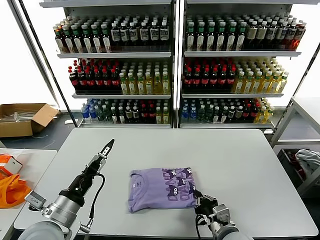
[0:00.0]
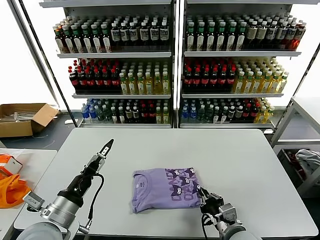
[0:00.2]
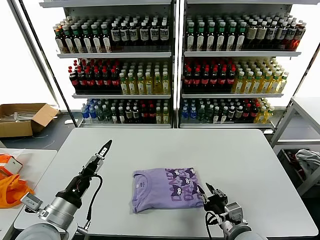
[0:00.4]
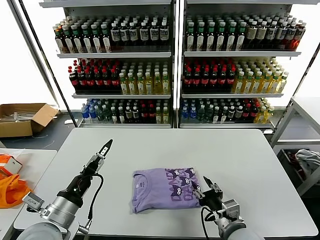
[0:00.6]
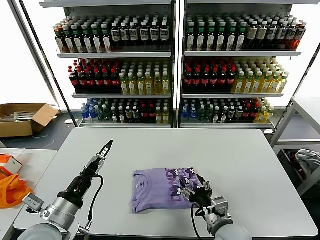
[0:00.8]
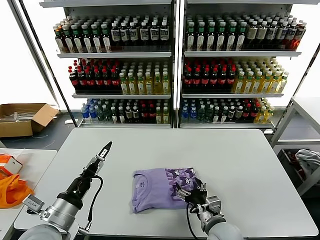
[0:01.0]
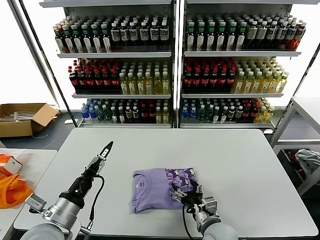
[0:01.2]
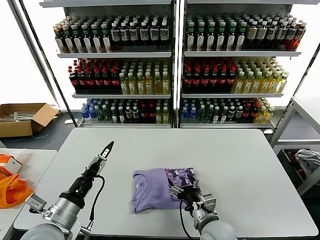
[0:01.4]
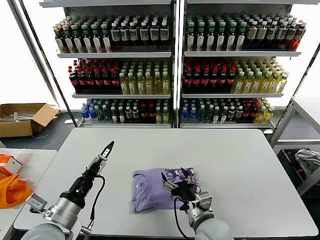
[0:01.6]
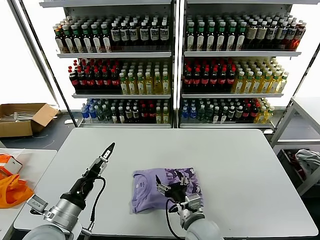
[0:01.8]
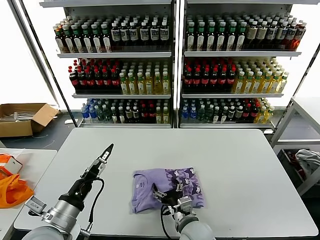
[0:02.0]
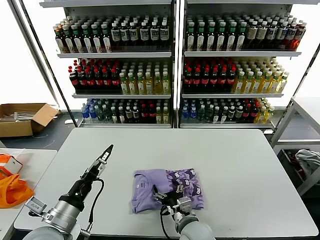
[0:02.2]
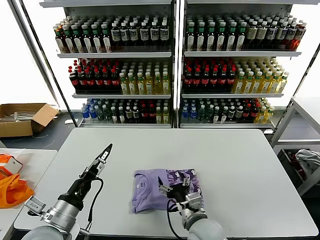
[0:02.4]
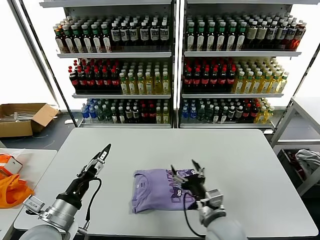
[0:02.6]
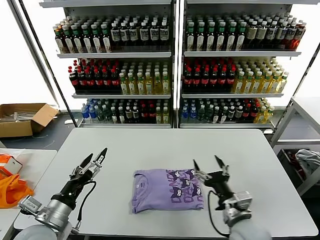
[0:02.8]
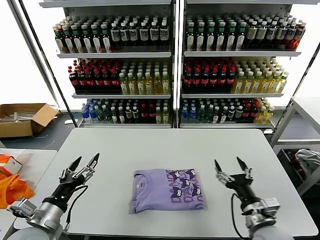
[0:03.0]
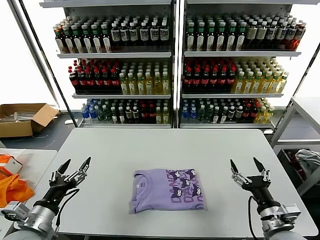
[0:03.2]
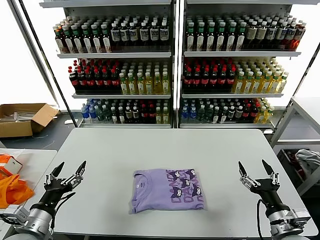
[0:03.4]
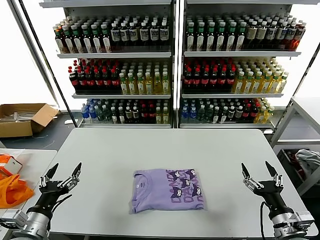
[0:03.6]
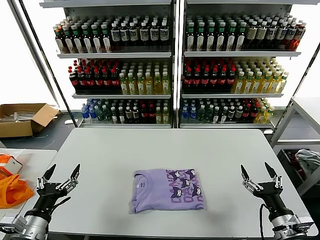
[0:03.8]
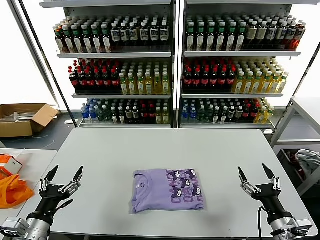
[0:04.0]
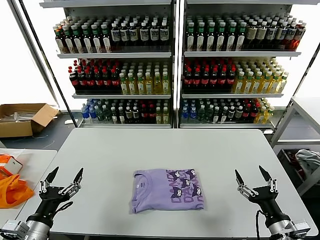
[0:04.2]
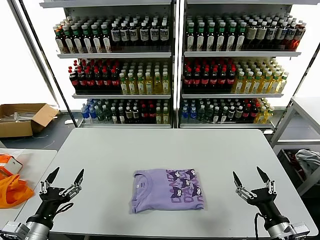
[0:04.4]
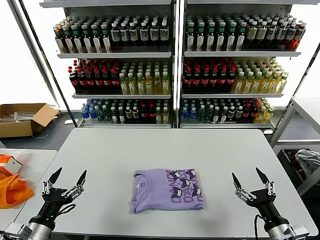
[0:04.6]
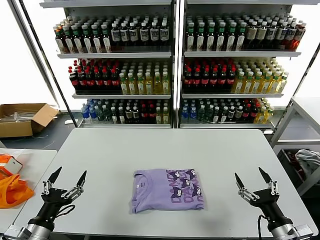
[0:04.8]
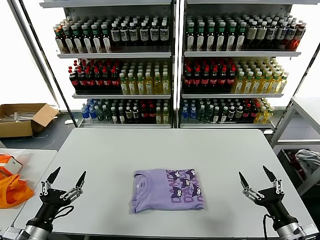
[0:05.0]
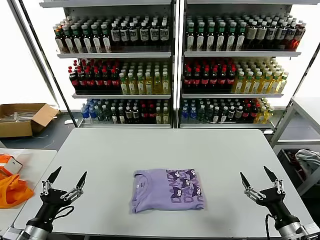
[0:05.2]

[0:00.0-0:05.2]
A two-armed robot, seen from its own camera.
Task of the whole recording: fold and organize the clothes.
Step, 0:00.0 to 0:02.2: Drag the clothes to the center of the table.
0:00.0 to 0:01.8: The right gripper travels to the left by roughly 10 cm, and opens its fingers.
0:01.8 to 0:03.4: The right gripper travels to the right by roughly 20 cm, while the left gripper is displaced to the left by roughly 10 cm.
0:03.4 to 0:05.2: The grippers stay close to where they were, moving slightly.
